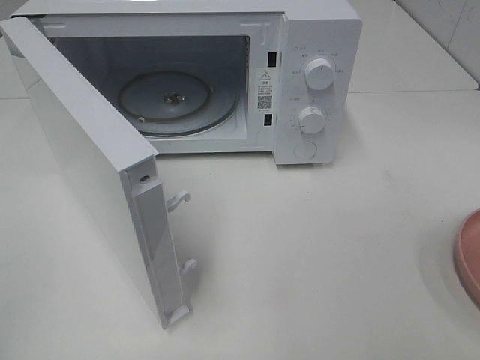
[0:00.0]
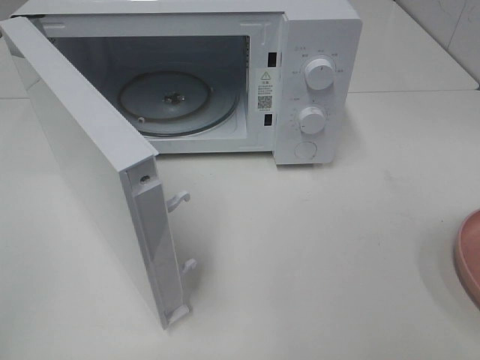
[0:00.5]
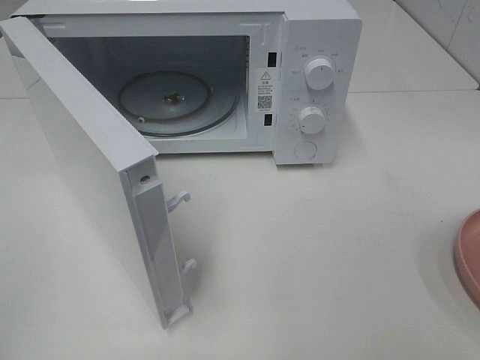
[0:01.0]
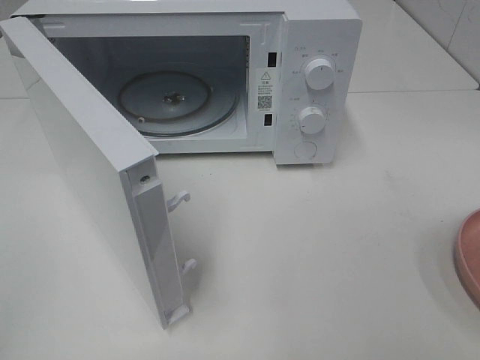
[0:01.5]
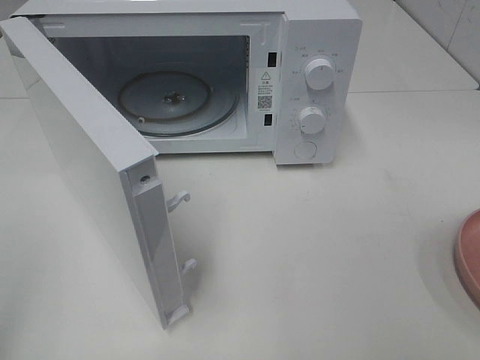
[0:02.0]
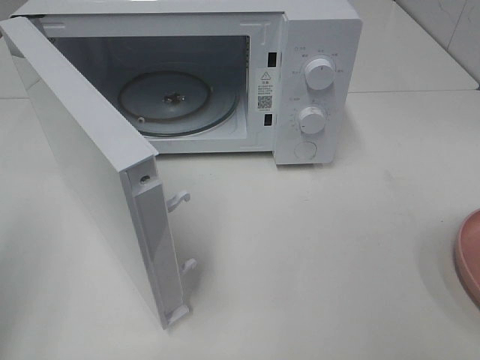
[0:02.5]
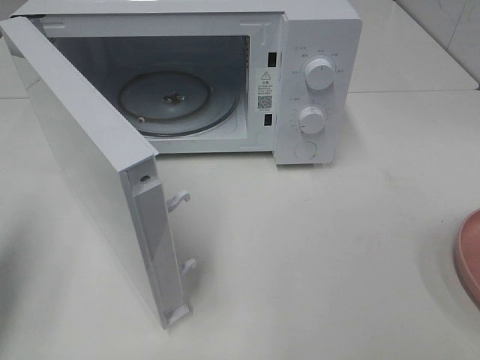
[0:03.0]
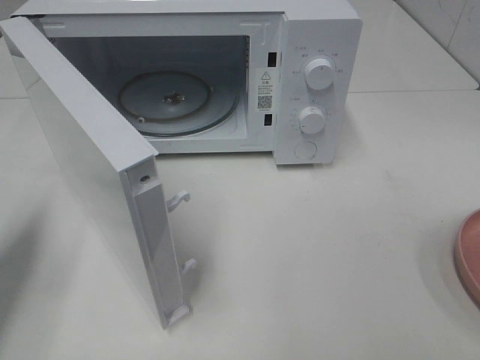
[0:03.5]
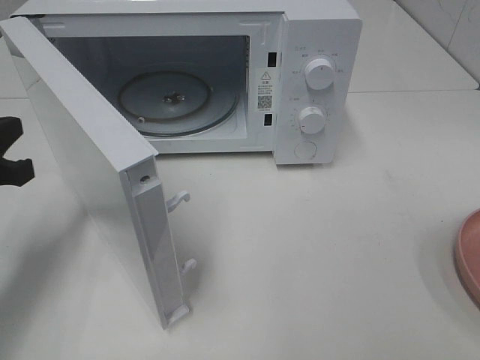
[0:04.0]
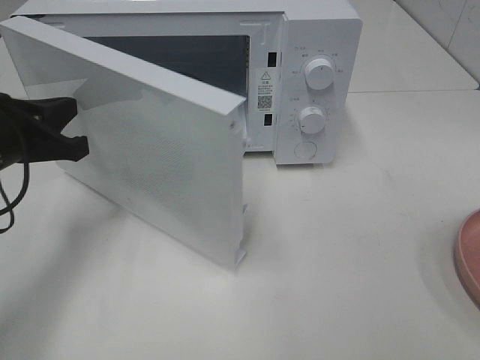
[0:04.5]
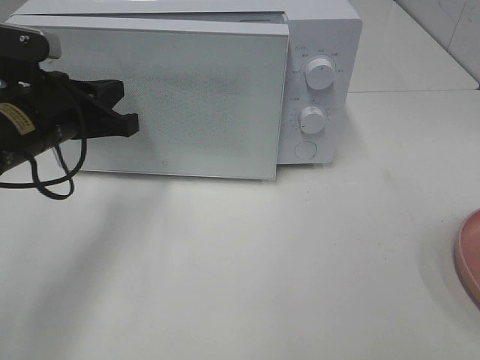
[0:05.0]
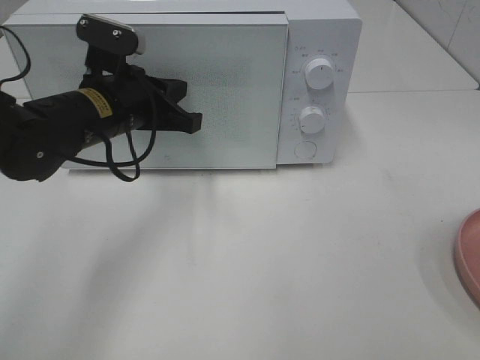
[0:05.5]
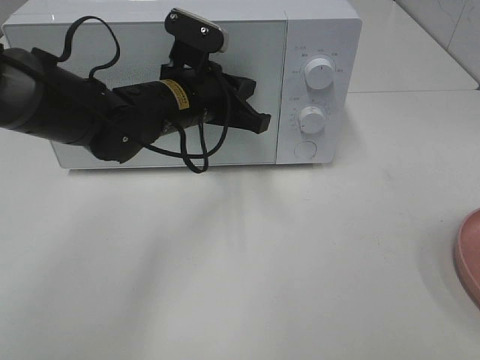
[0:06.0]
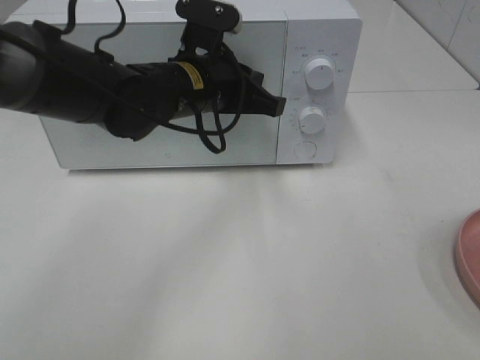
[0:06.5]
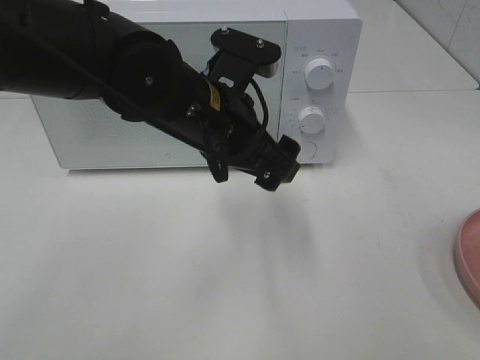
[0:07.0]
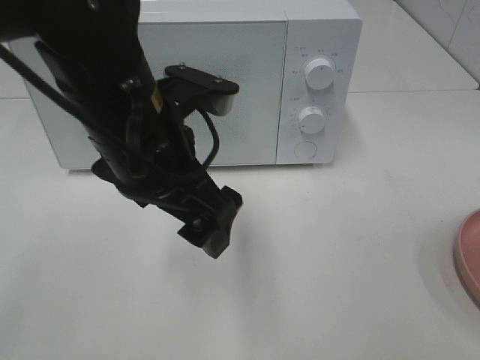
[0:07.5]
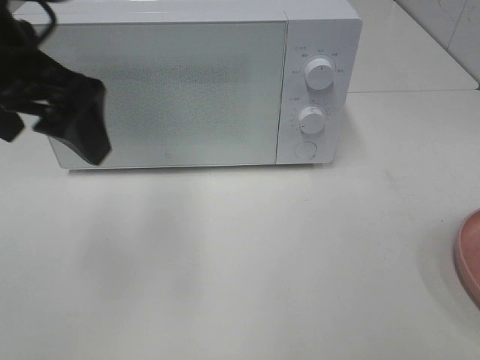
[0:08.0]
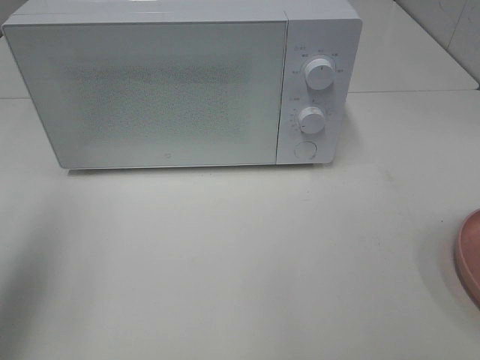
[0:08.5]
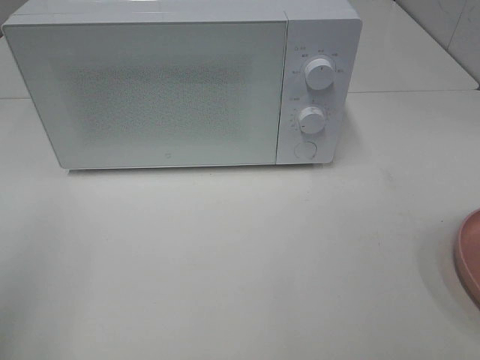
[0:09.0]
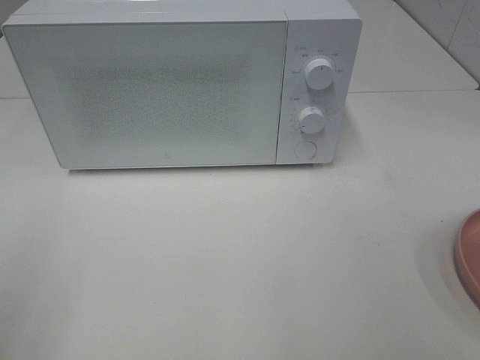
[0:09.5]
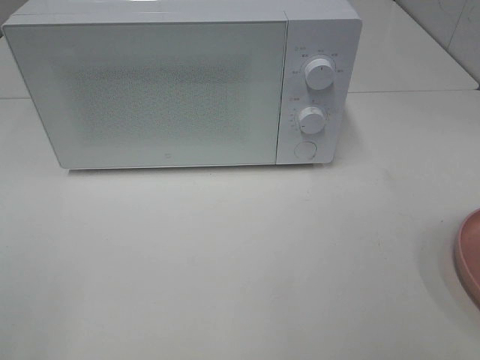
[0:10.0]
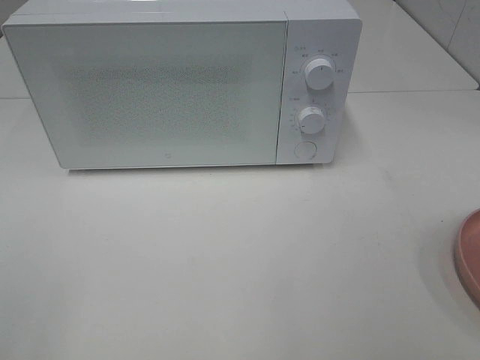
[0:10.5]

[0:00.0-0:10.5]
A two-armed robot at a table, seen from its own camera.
Task of the whole recording: Heat the burger.
Step, 0:00.0 to 0:06.5: Left hand: close the microwave door.
0:02.0 to 0:04.0: The left gripper goes some 25 cm forward and downward, and closes its fingers.
0:04.0 to 0:06.5: The left gripper travels to the right and forward by roughly 25 cm.
0:06.5 to 0:08.5: The left gripper heads to the left, backward and upward, covering about 35 cm, and opens up.
0:08.5 to 0:10.5: The left gripper heads backward, covering approximately 20 cm.
